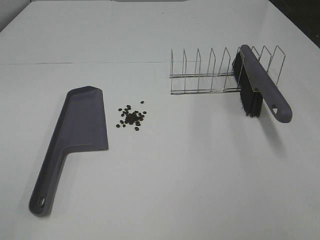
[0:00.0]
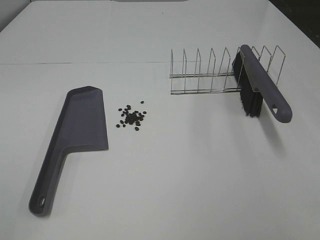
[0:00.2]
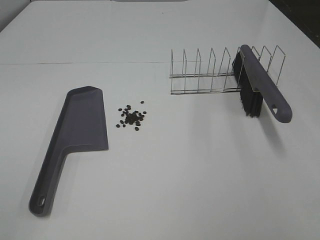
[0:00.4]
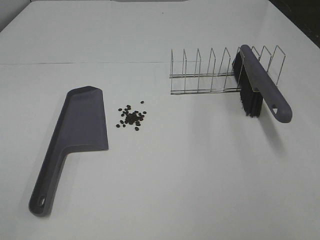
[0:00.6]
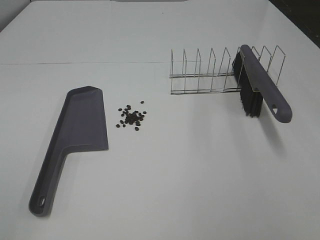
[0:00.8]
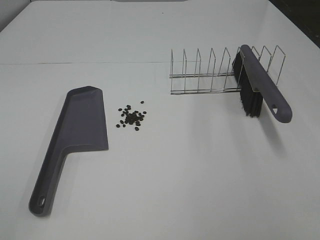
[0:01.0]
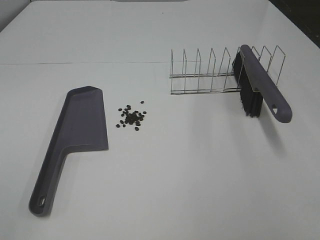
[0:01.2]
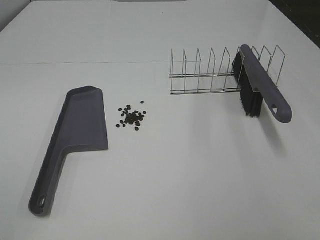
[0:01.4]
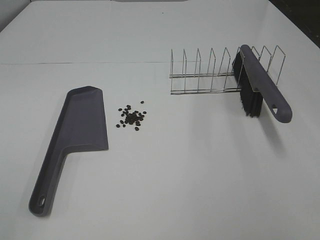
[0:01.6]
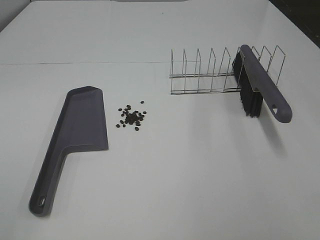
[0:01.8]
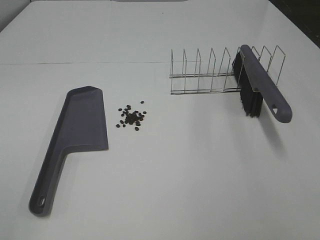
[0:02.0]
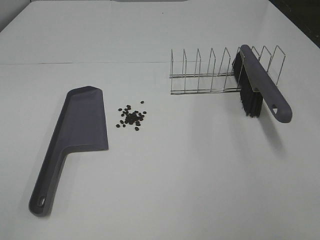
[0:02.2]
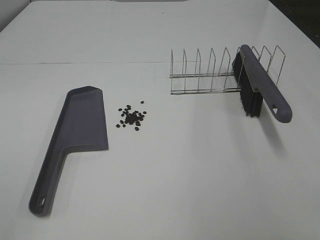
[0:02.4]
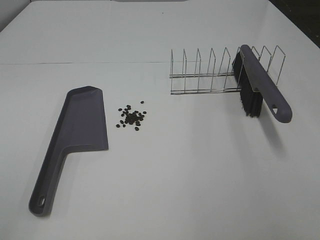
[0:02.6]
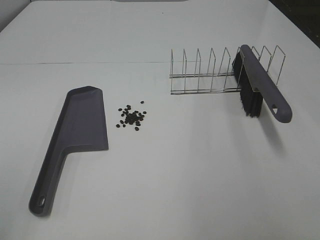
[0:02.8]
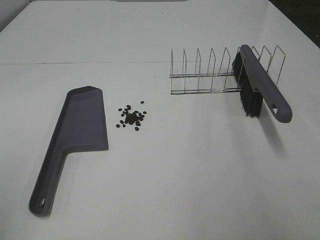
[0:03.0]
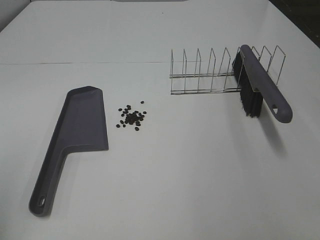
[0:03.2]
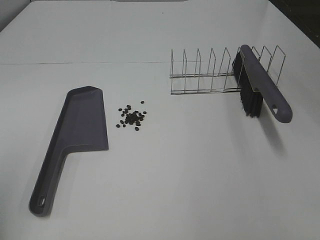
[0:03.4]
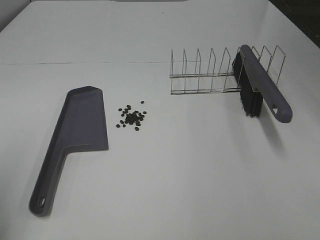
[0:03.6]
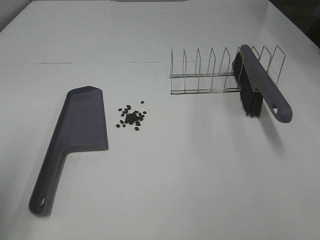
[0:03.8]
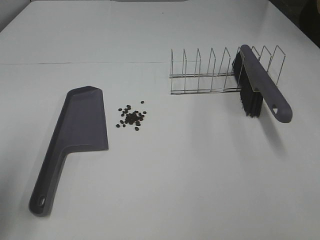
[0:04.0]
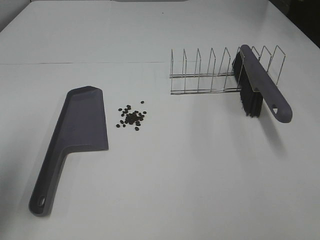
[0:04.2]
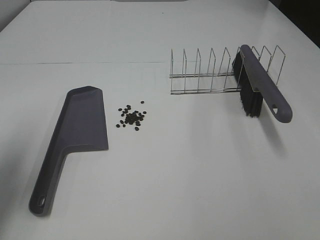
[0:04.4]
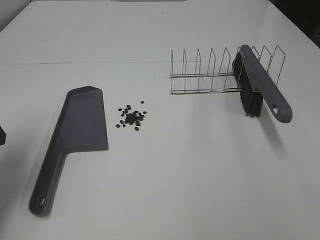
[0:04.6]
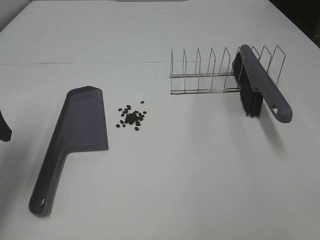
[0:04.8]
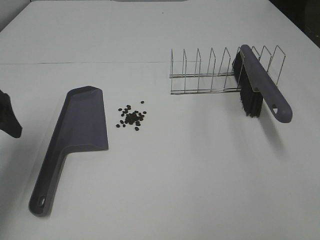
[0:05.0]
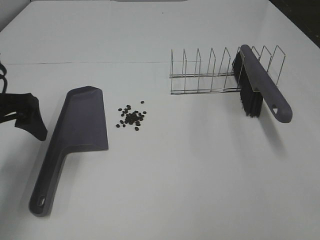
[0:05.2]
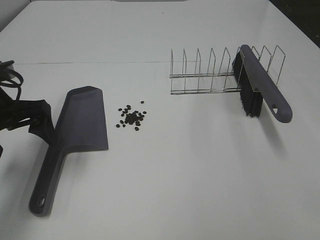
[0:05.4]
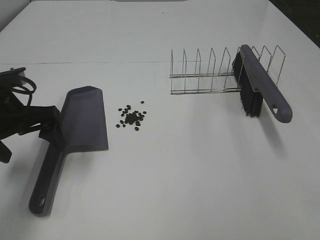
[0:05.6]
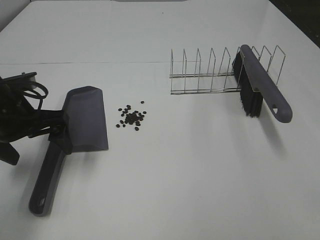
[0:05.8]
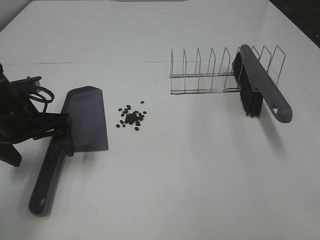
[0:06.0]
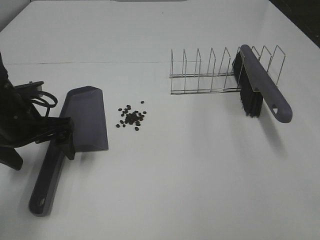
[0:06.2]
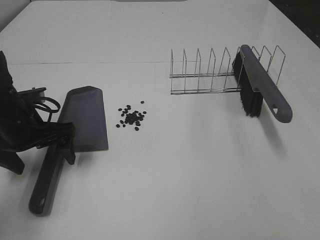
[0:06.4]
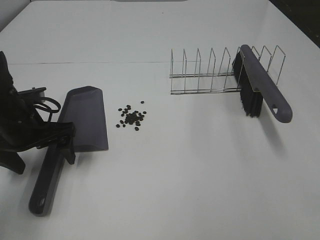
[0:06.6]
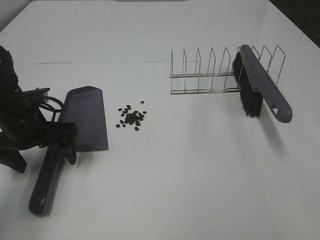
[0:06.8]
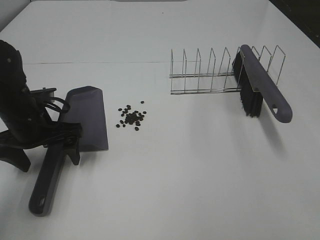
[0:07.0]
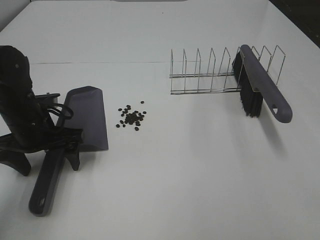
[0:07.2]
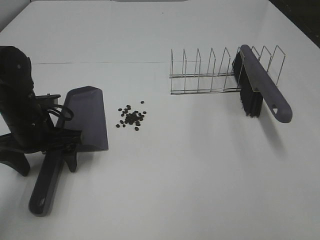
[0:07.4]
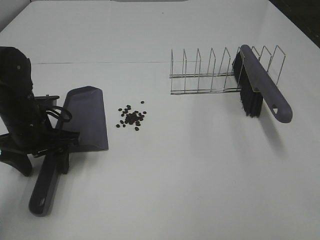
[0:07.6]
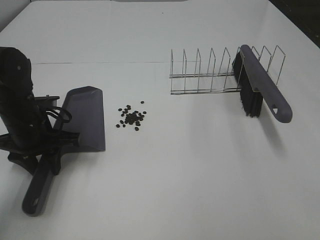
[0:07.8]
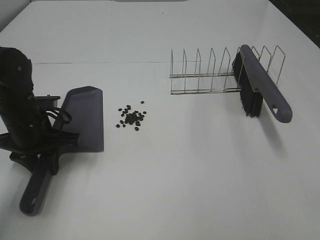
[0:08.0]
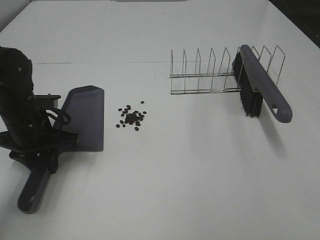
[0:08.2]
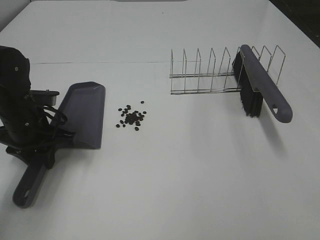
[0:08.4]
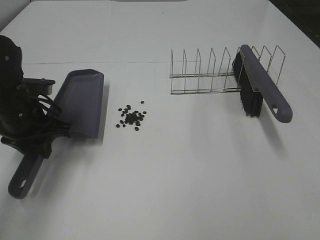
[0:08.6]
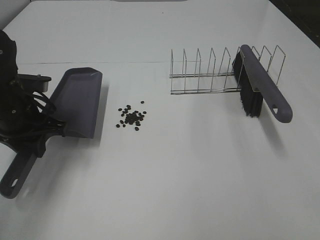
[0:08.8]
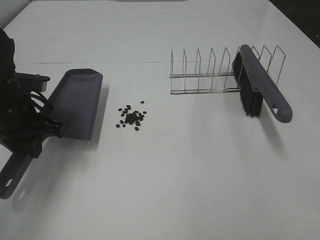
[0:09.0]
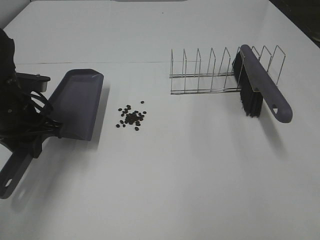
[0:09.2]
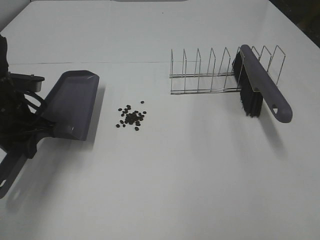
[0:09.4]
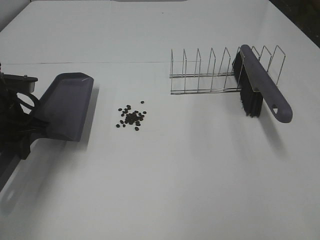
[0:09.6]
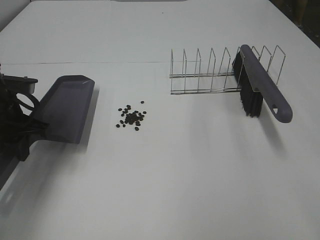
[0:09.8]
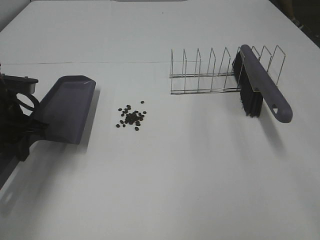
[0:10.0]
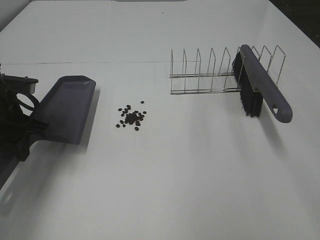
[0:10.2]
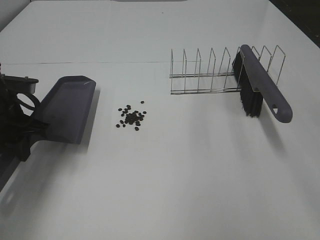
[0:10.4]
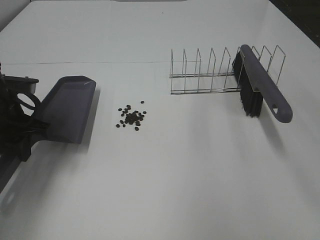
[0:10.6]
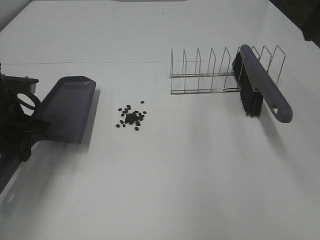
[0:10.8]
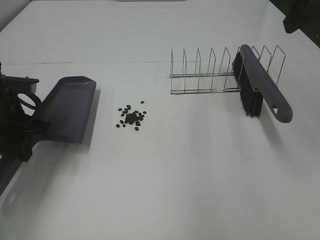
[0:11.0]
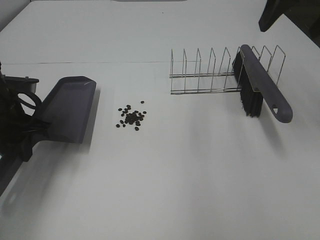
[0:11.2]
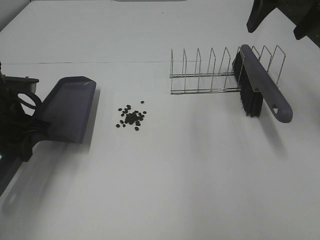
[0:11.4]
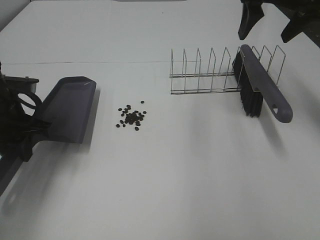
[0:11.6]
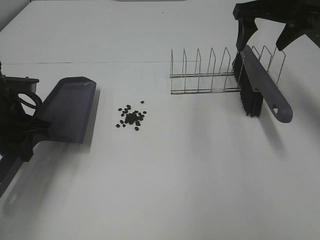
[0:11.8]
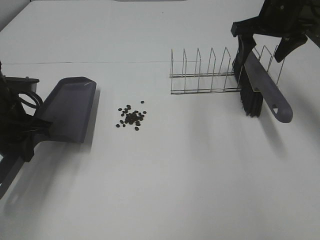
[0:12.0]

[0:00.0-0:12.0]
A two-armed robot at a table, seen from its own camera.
Task of the whole recording: Sweep Coffee Bean.
Step, 0:00.0 to 0:08.2: Left hand: grab the dustpan.
0:00.0 to 0:01.6: Both grippers stay about where they are.
0:03.0 to 0:04.4: The left gripper moves forward, some 15 cm.
0:04.4 to 0:06.0: The left gripper travels to the right, downward and forward by roughly 15 cm.
0:06.0 to 0:07.6: The left gripper closes up.
0:07.6 to 0:09.0: The left gripper closes.
0:10.4 to 0:12.0: The right gripper shifts roughly 35 cm forward and downward.

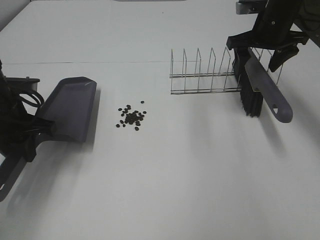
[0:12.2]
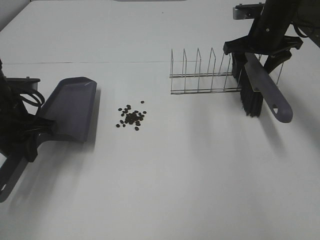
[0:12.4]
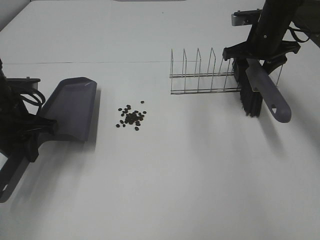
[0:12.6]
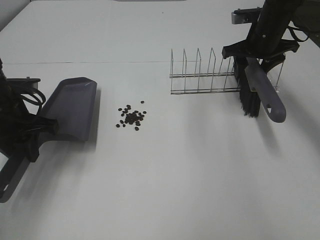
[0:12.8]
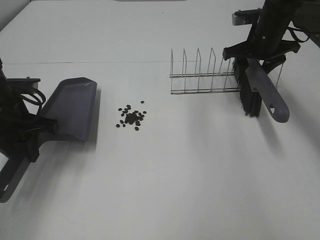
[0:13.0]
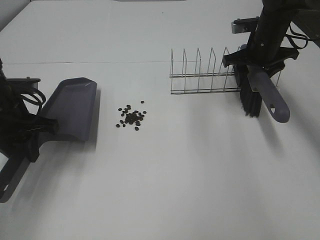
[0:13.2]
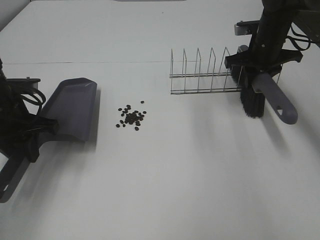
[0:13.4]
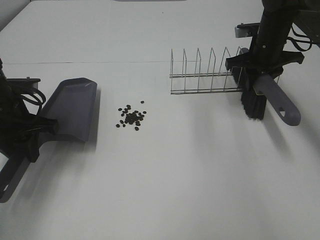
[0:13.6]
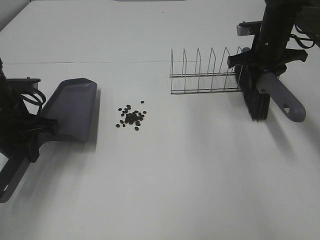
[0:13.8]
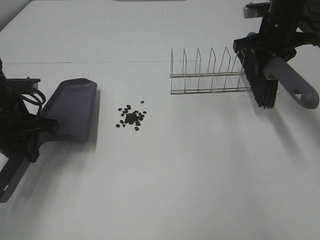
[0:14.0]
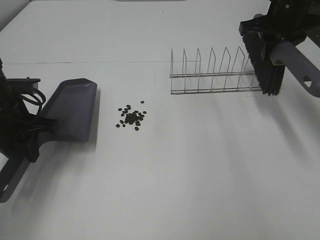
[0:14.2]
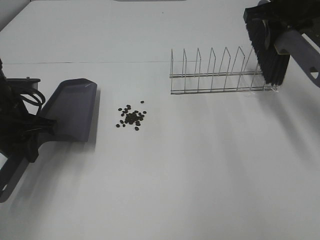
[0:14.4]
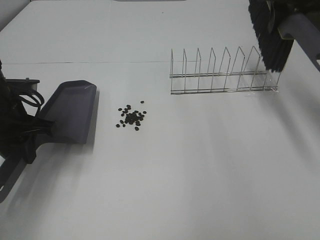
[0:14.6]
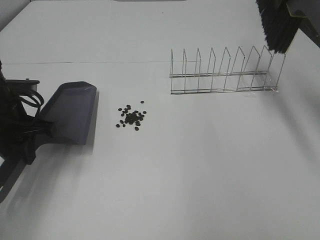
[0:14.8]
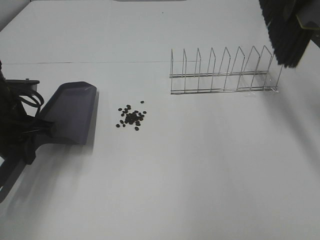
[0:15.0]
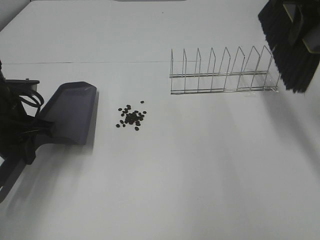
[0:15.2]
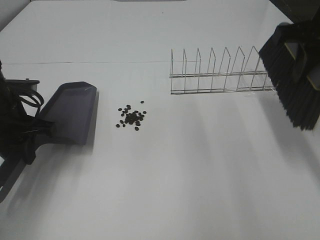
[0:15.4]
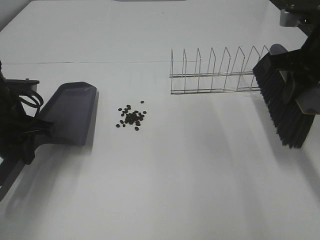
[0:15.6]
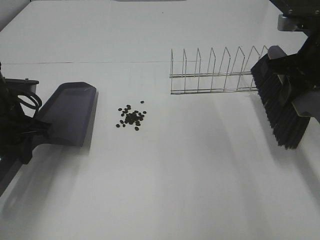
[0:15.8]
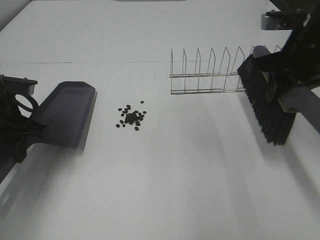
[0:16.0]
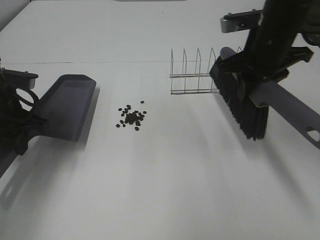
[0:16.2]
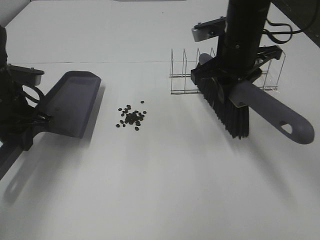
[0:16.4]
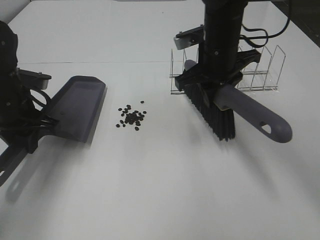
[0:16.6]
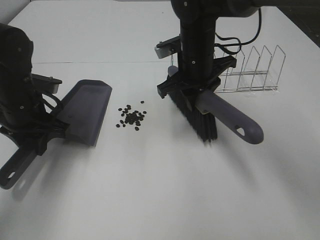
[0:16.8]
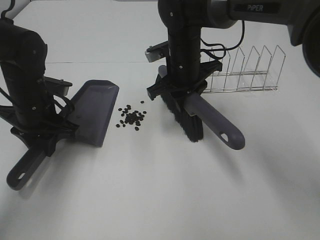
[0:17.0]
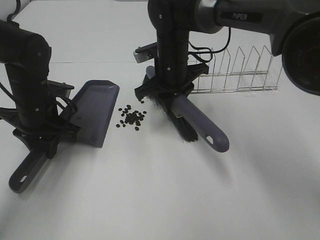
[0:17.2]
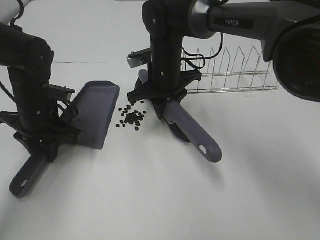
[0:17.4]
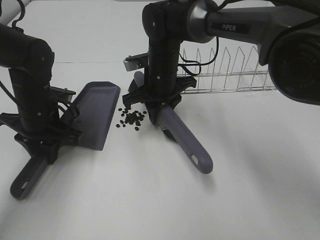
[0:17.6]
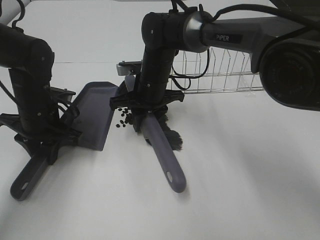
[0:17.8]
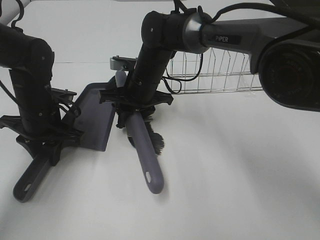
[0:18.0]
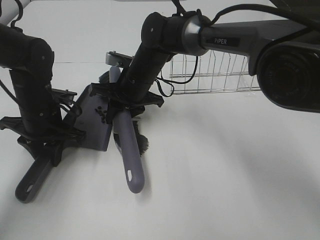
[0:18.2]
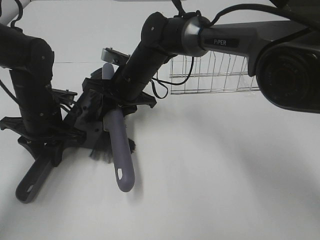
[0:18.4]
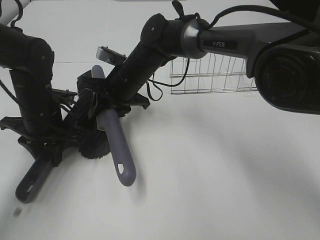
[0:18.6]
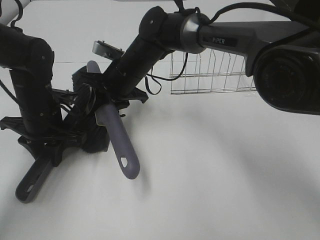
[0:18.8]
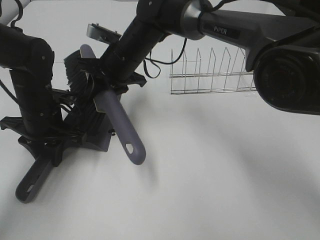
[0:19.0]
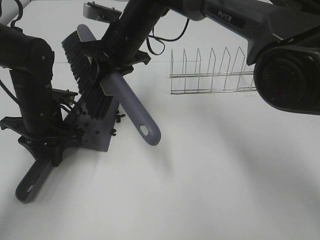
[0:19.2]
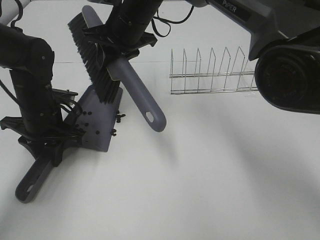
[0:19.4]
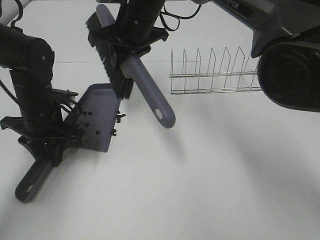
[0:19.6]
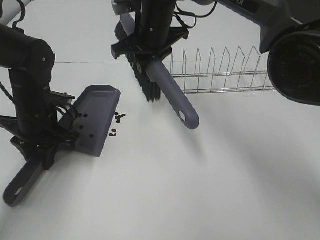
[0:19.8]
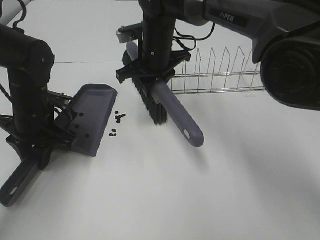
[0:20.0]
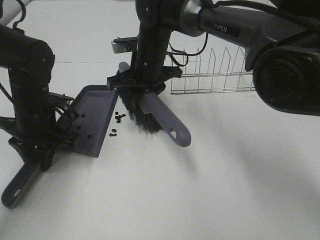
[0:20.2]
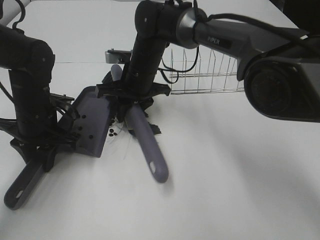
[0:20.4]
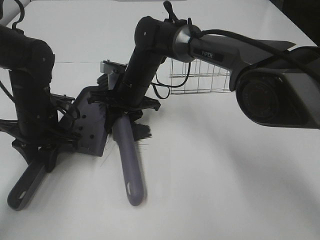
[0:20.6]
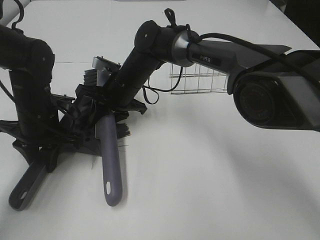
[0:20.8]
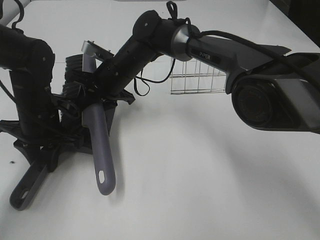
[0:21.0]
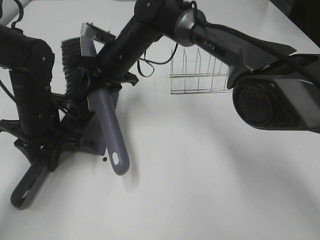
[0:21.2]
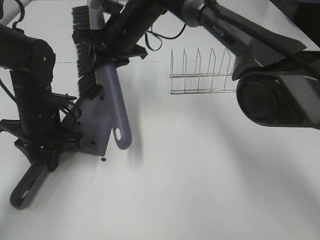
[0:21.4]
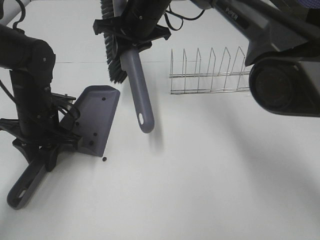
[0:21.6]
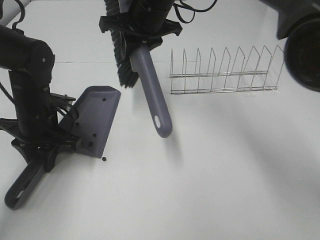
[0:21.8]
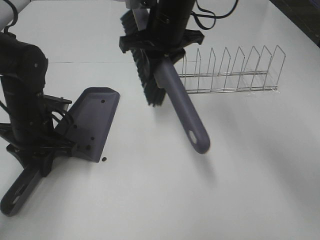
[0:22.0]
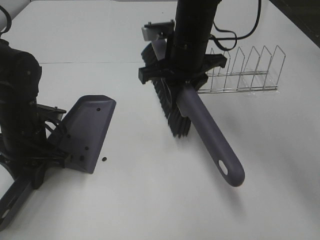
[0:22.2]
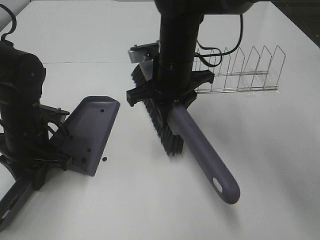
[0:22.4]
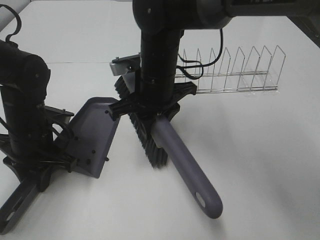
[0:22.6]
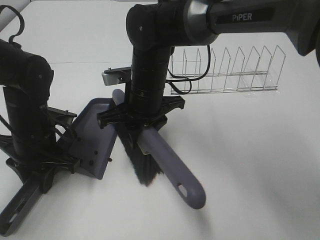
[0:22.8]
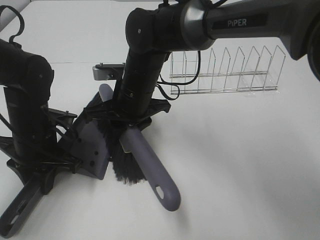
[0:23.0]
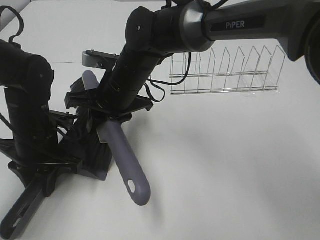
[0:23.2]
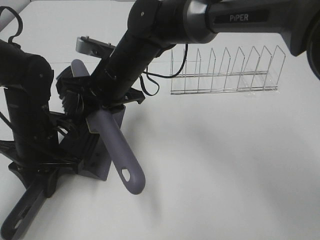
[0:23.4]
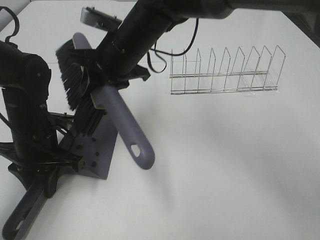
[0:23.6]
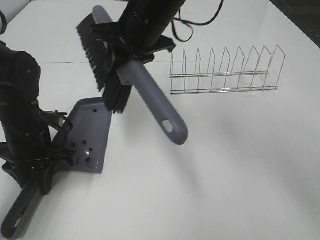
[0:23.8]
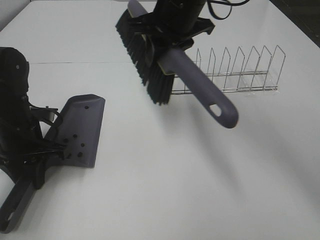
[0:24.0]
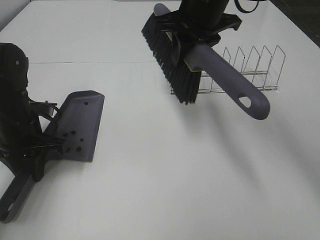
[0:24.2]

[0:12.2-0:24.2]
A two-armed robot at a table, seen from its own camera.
Task of the whole recording: Sweep Coffee Bean.
Step, 0:13.4 to 0:23.6: Right hand:sweep the coffee beans into the dustpan.
0:12.2 to 0:13.8: The right gripper closes its fingers.
0:13.8 to 0:15.2: The right gripper heads upward and backward, covering about 20 cm.
0:15.2 to 0:16.6: The right gripper shifts approximately 20 cm to the left and downward.
0:16.6 to 0:18.2: The right gripper heads to the left and downward, covering about 15 cm. Meanwhile the left gripper changes place by roughly 5 cm.
0:18.2 to 0:19.8: The right gripper heads upward, covering approximately 10 cm.
0:19.8 to 0:21.2: The right gripper is displaced to the left by some 5 cm.
0:21.2 to 0:22.6: The right gripper shifts approximately 10 cm backward.
0:22.6 to 0:24.2: The right gripper goes roughly 15 cm upward and to the right.
